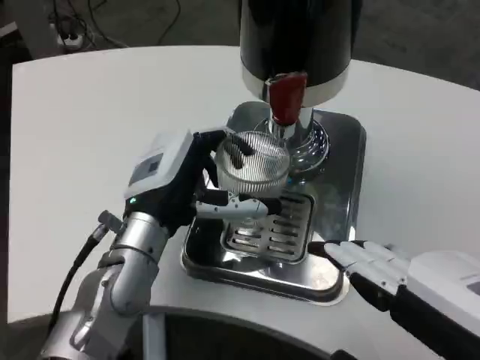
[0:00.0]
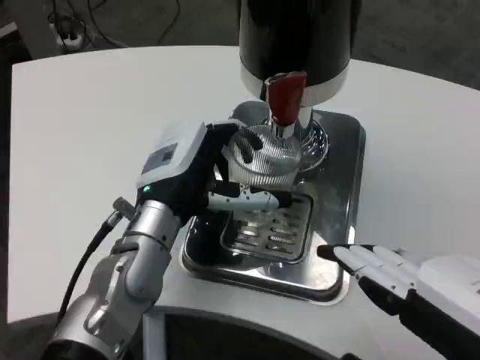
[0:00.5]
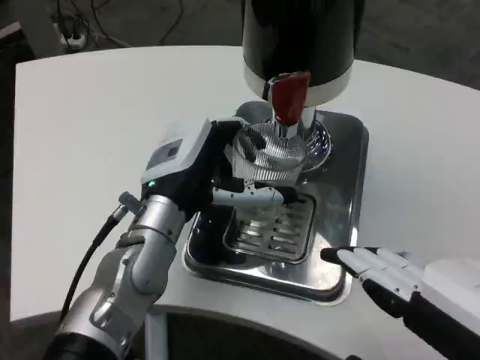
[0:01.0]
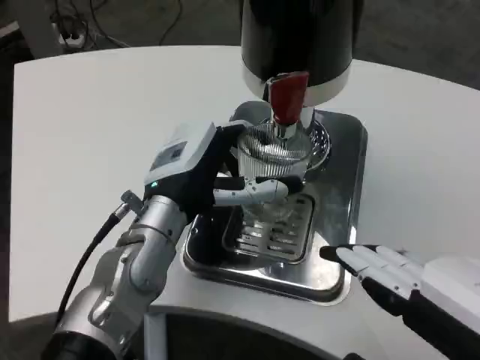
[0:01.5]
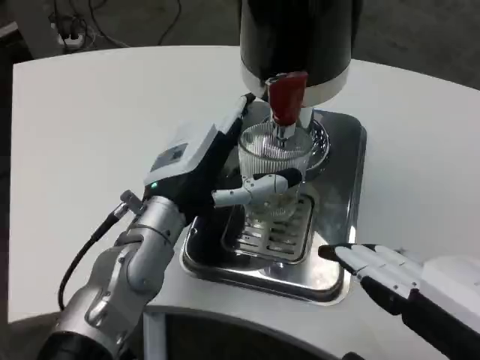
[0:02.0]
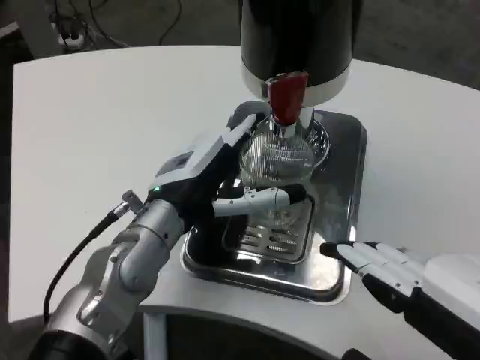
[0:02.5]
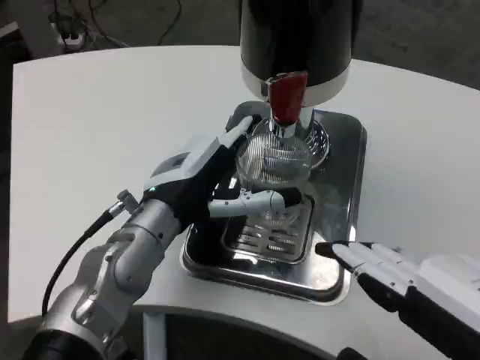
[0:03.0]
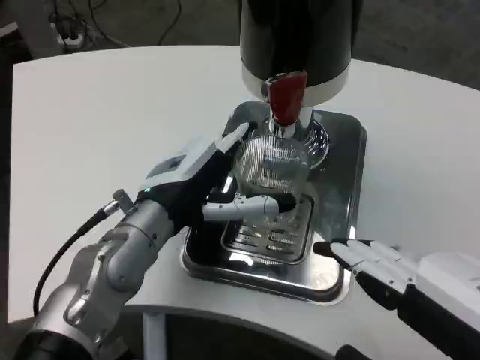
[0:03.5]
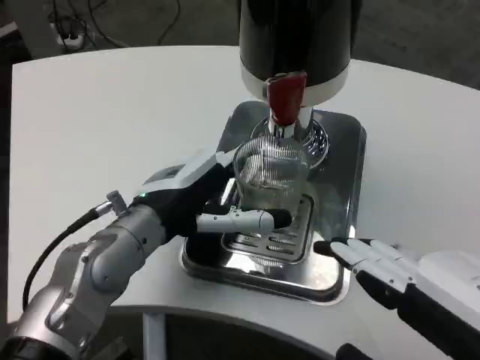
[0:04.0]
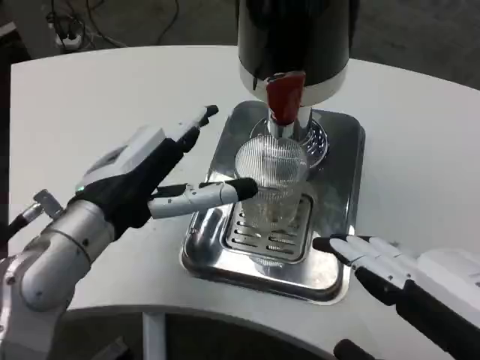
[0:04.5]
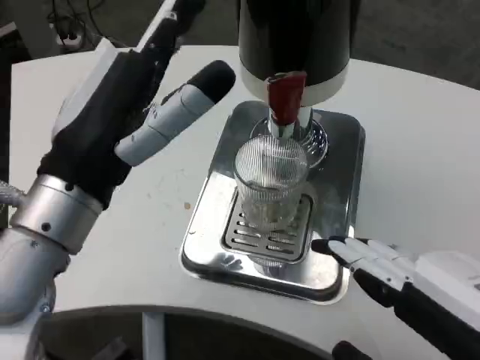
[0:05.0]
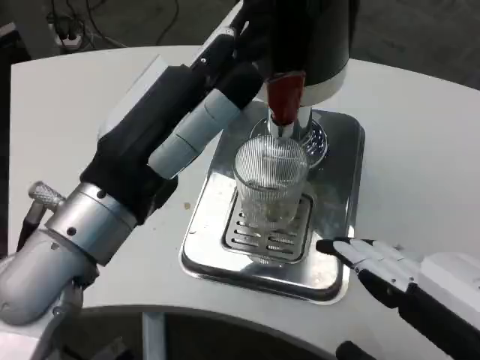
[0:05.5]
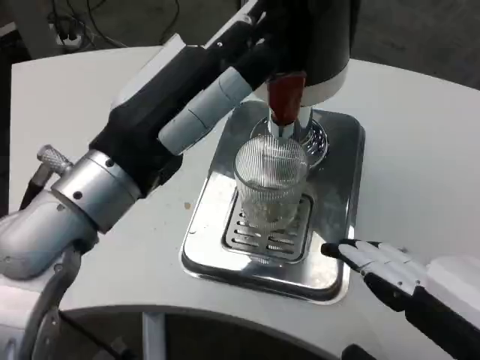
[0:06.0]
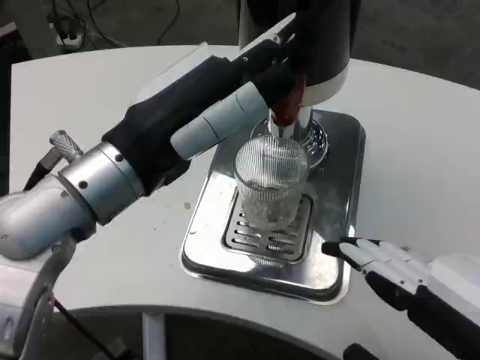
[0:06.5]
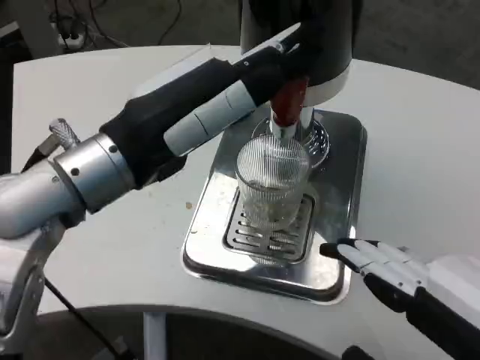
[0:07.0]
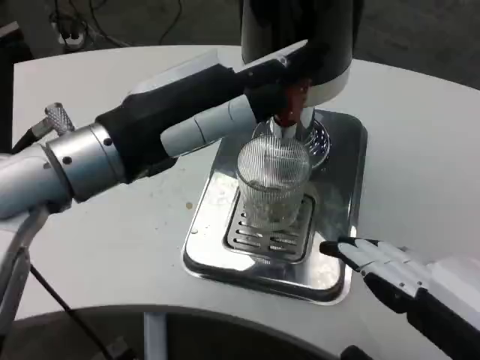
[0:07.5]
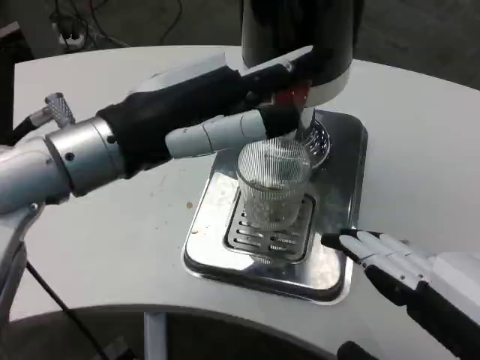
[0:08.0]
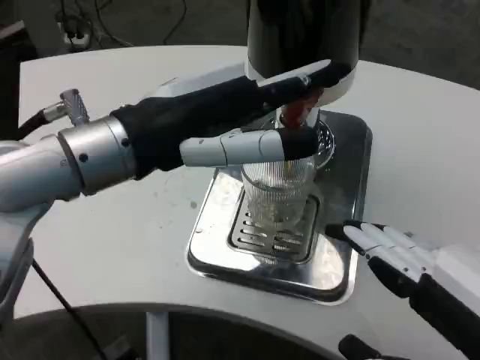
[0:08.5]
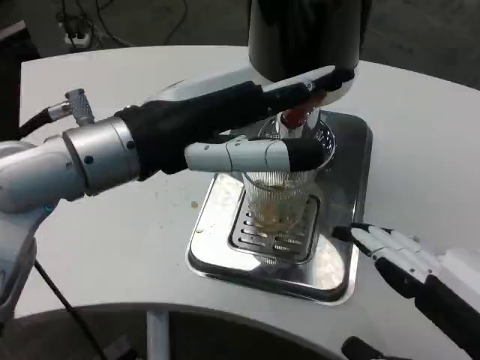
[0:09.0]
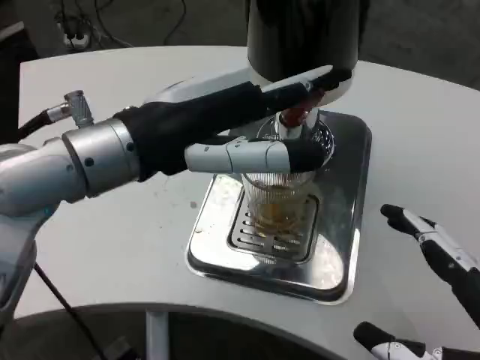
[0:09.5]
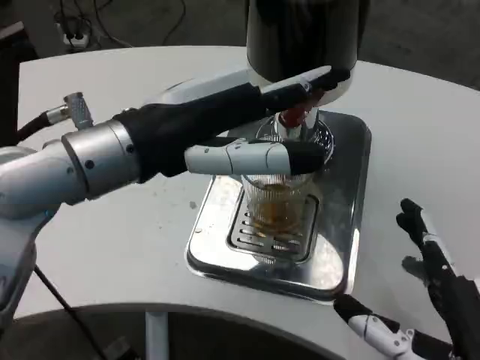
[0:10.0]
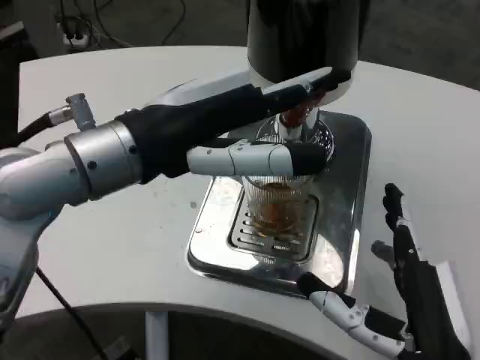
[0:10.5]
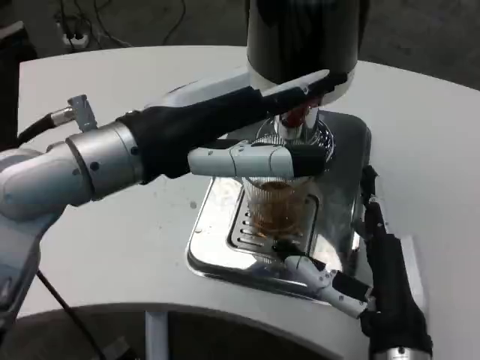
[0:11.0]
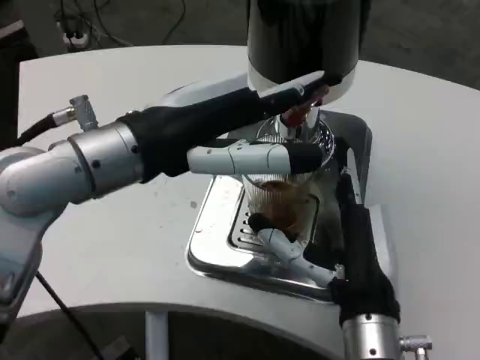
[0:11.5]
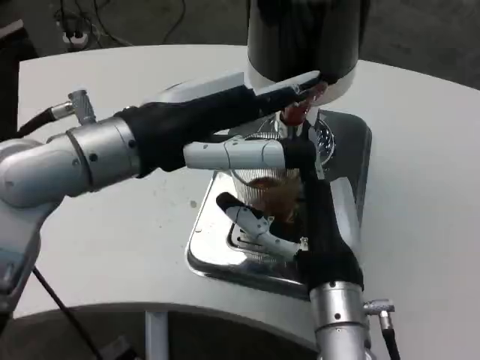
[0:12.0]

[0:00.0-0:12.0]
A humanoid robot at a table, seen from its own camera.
Task of the whole recording: Grasp the cup under the faucet to collect the drink, then remove the cup.
0:00.0 to 0:02.0: The hands stay close to where they were, moving slightly.
0:02.0 to 0:04.0: The hands stay close to where they were, moving slightly.
0:04.0 to 0:06.0: The left hand travels upward and backward by some 10 cm.
0:08.0 to 0:10.0: The right hand moves downward, approximately 10 cm.
0:10.0 to 0:12.0: The right hand travels forward and to the left by approximately 15 cm.

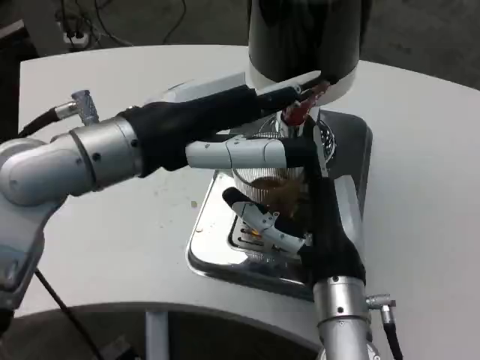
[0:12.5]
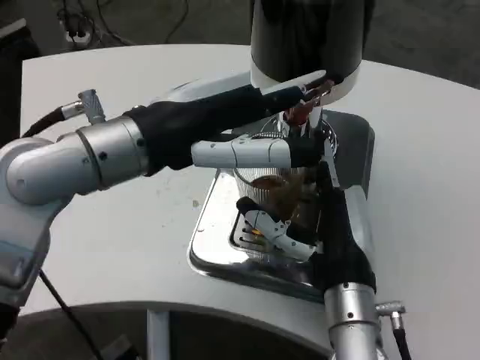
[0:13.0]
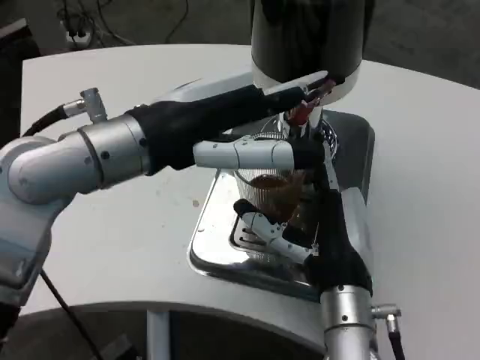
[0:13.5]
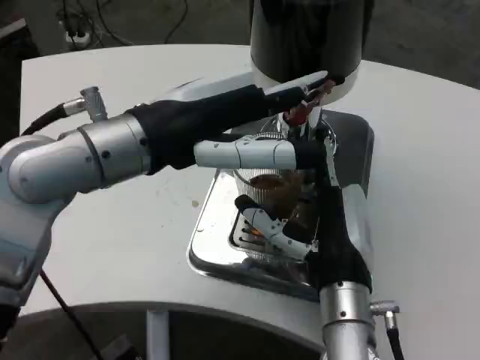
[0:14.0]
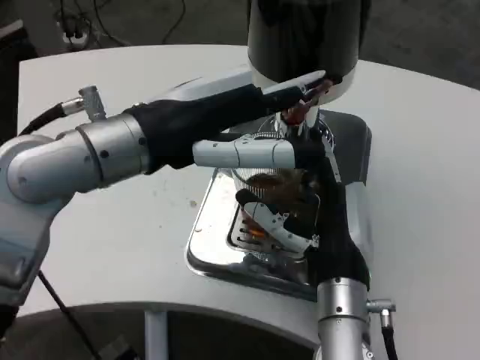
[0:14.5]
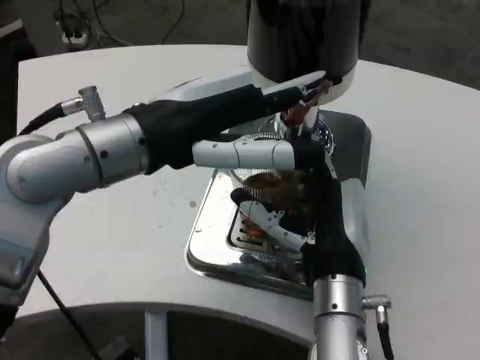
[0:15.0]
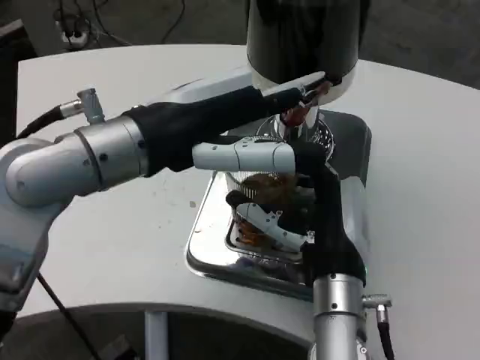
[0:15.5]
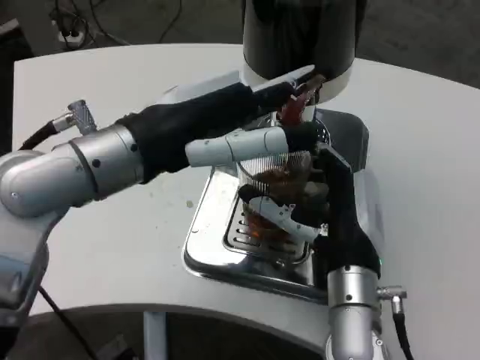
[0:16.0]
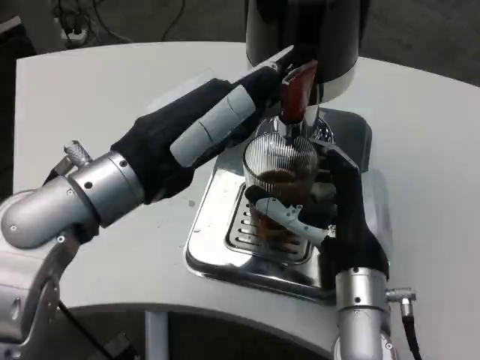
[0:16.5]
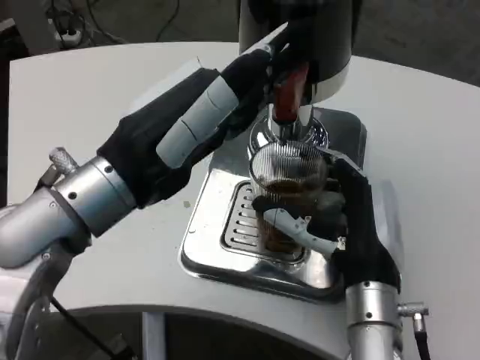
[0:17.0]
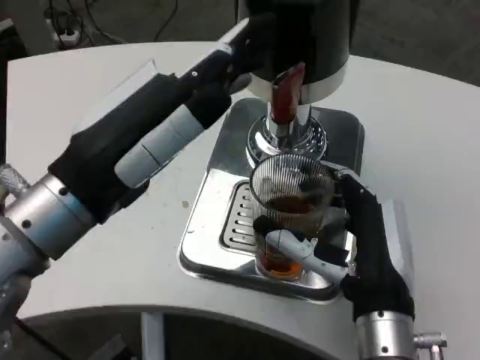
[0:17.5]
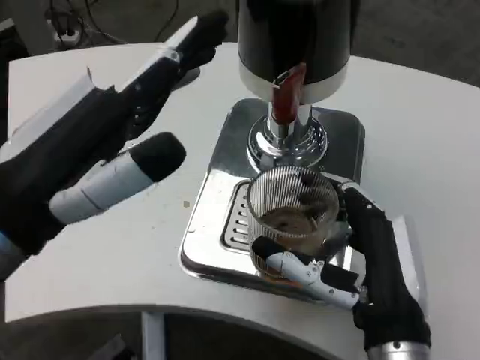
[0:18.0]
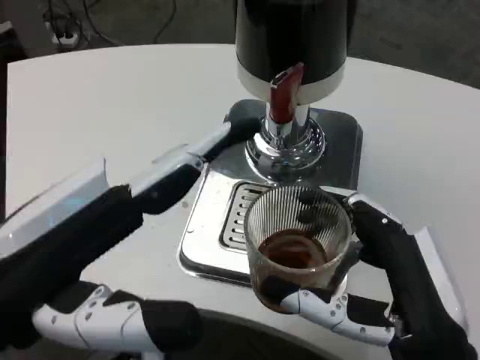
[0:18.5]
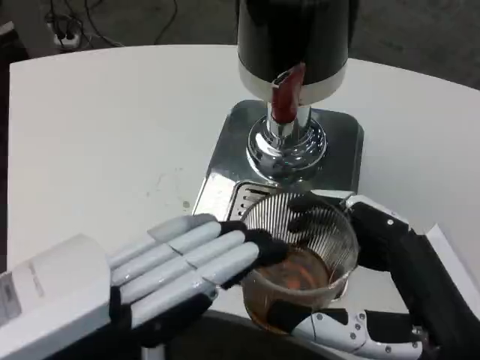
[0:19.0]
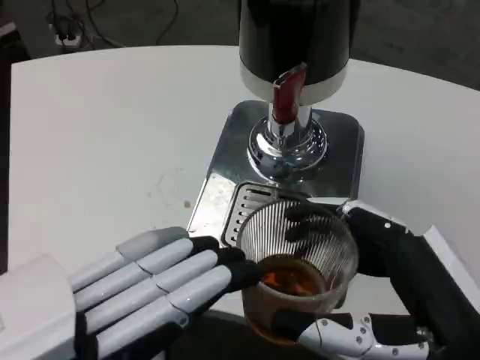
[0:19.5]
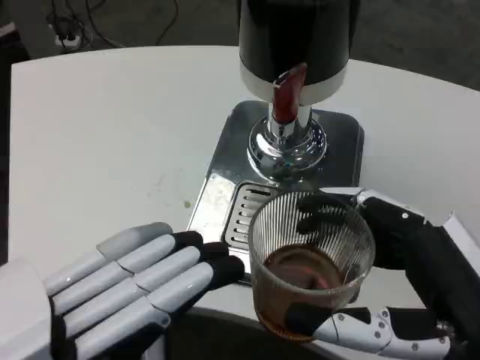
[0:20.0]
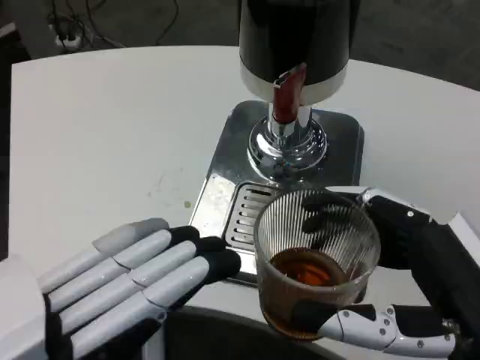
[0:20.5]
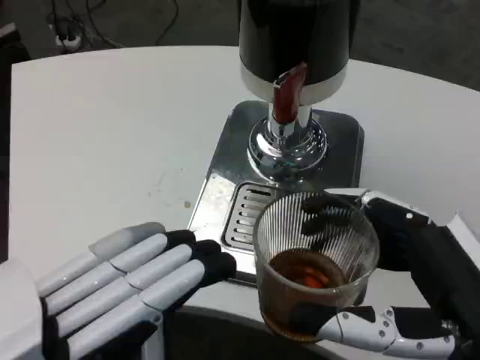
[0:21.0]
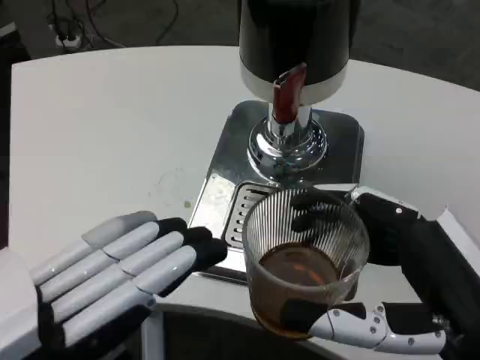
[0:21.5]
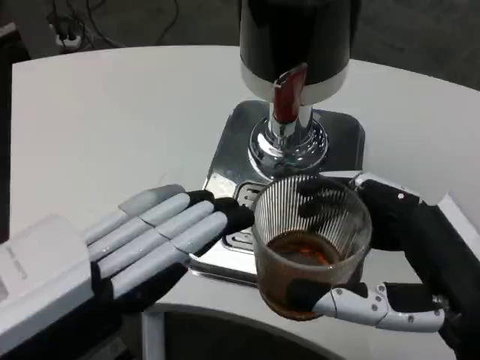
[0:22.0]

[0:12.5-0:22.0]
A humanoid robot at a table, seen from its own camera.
Task of the whole recording: Grasp the cup under the faucet to collect the drink, then remove the cup.
0:12.5 to 0:14.5: The hands make only small movements.
0:16.5 to 0:18.0: The left hand is displaced backward and to the left by some 10 cm, while the right hand goes some 10 cm backward.
0:18.0 to 0:20.0: The right hand travels to the right, backward and upward by some 10 cm, while the left hand shifts about 10 cm backward.

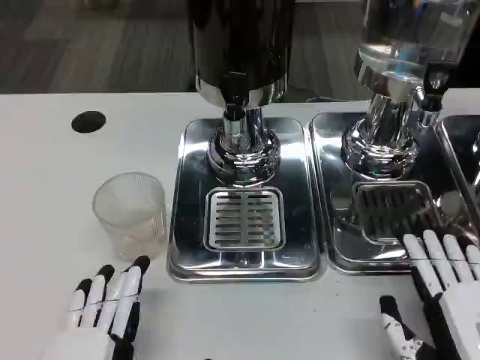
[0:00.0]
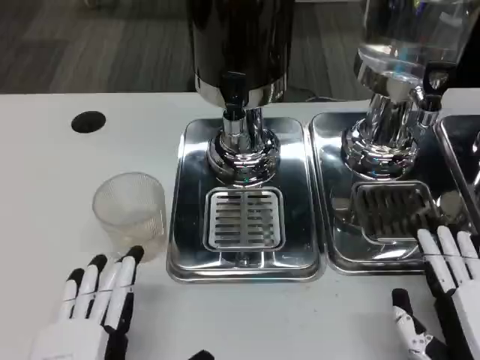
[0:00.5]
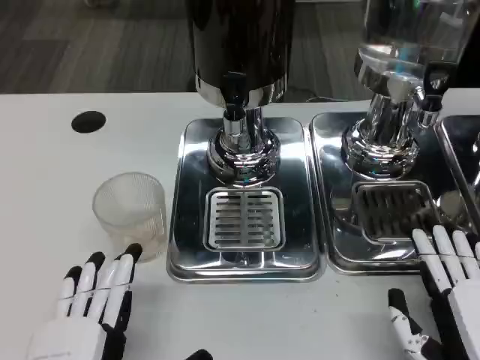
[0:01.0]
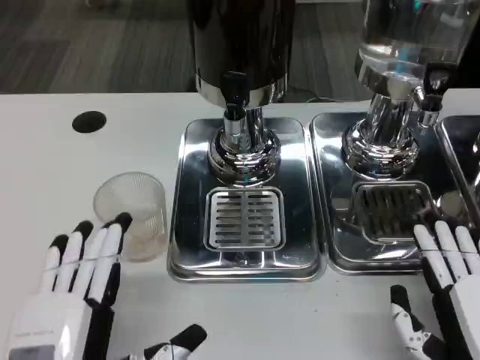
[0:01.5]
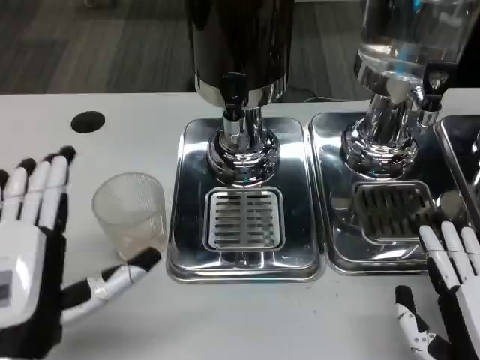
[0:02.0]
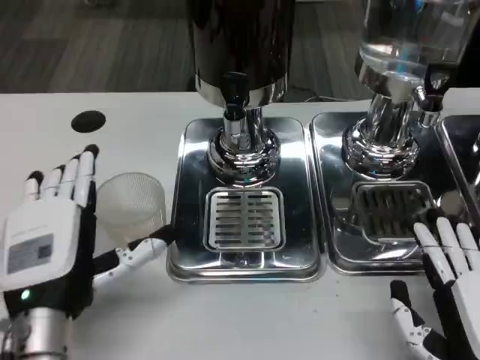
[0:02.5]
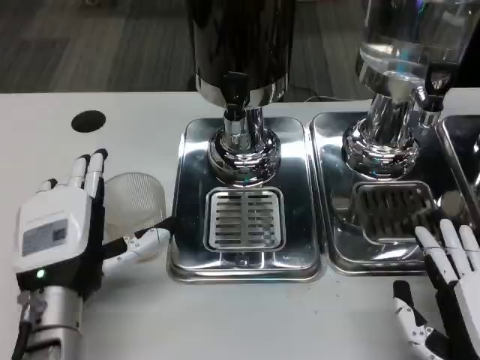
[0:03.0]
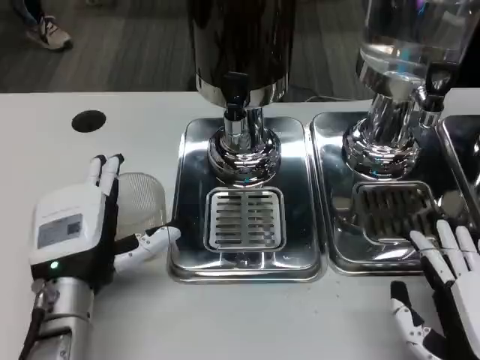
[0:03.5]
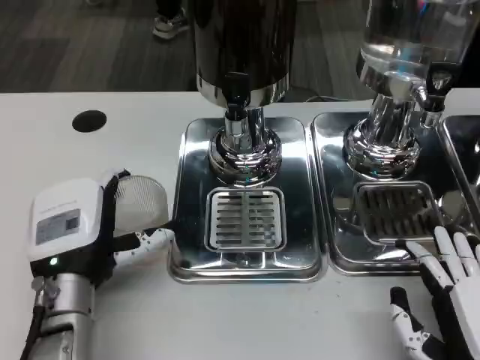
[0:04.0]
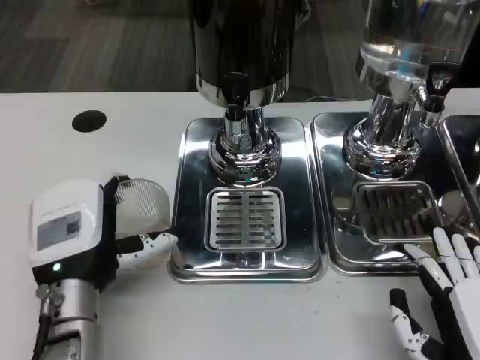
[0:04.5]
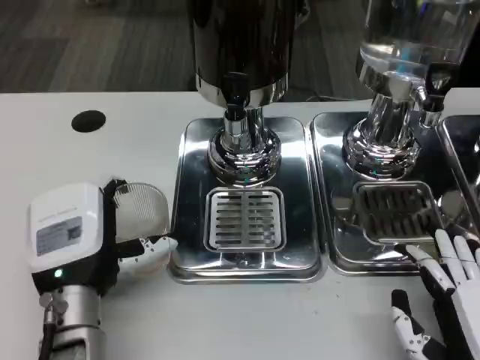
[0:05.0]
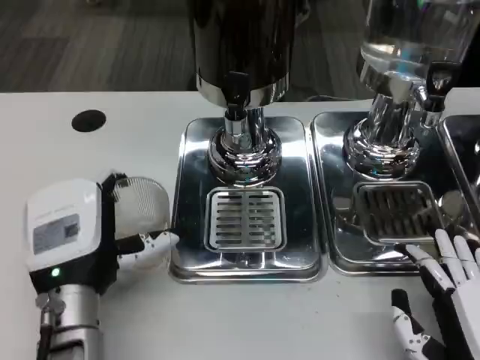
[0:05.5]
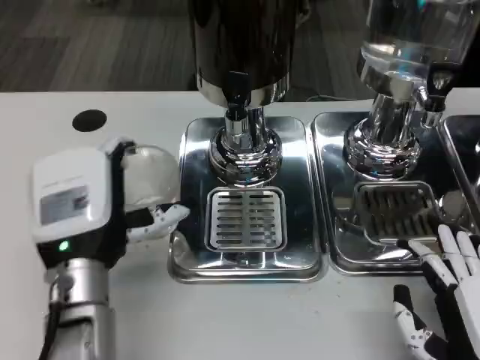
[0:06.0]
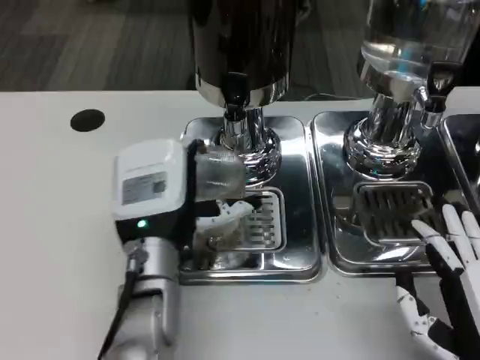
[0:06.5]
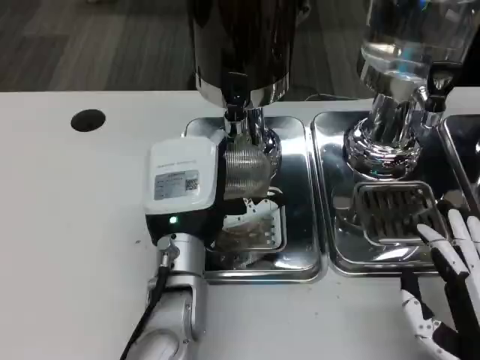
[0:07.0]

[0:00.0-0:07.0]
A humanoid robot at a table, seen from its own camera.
Task of the whole recording: Grasp the cup under the faucet to collect the drink, then remove the cup.
0:00.0 to 0:02.0: The left hand travels forward and upward by some 10 cm.
0:02.0 to 0:03.5: The left hand shifts some 10 cm forward.
0:03.5 to 0:05.0: The hands stay close to where they were, moving slightly.
0:05.0 to 0:07.0: The left hand is displaced to the right by approximately 10 cm.
